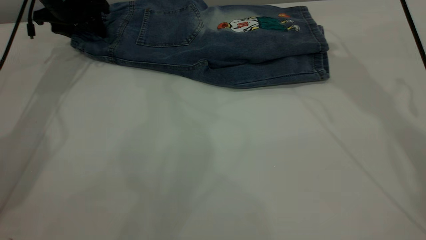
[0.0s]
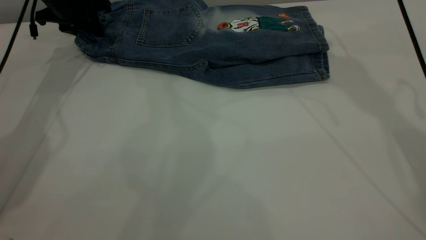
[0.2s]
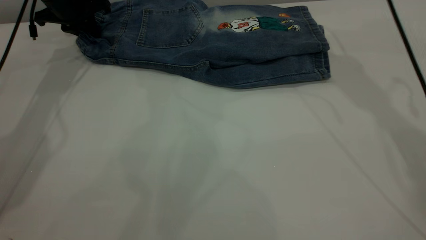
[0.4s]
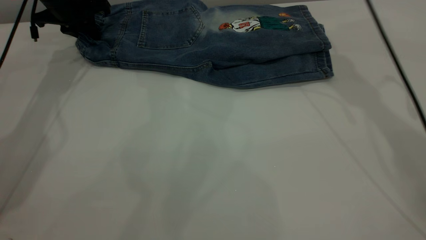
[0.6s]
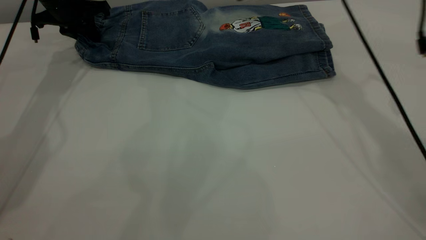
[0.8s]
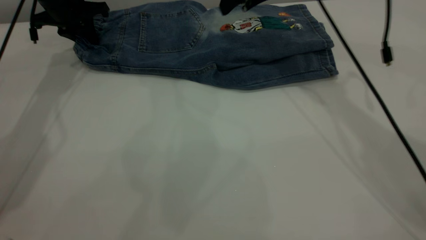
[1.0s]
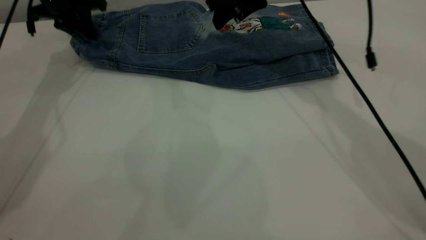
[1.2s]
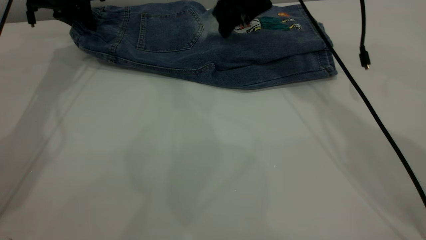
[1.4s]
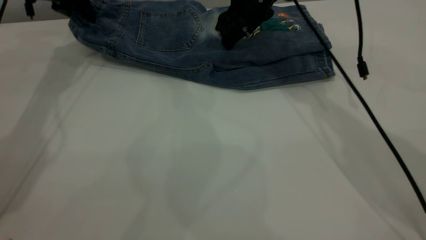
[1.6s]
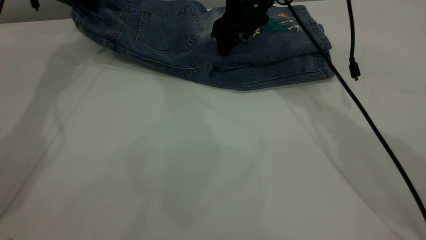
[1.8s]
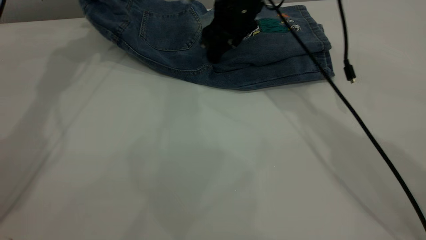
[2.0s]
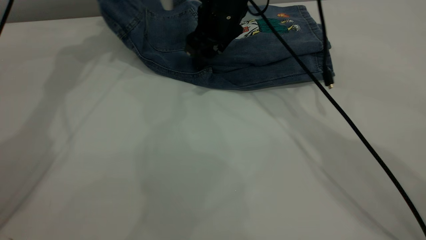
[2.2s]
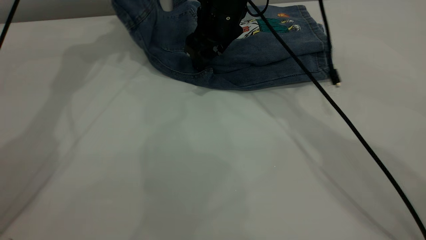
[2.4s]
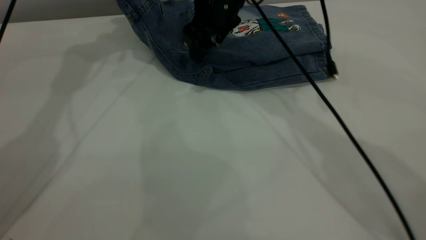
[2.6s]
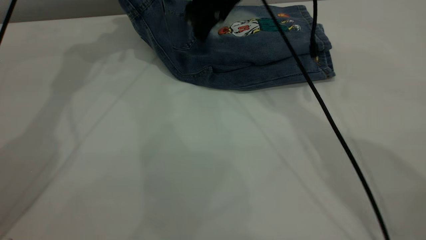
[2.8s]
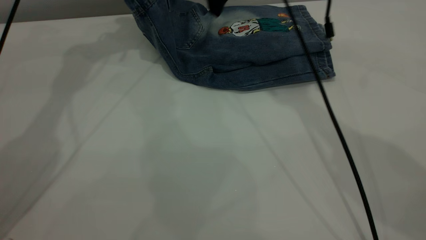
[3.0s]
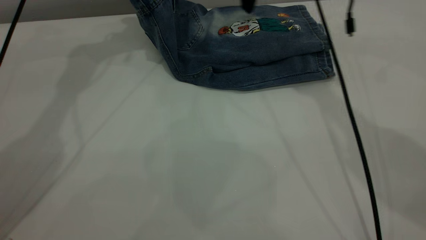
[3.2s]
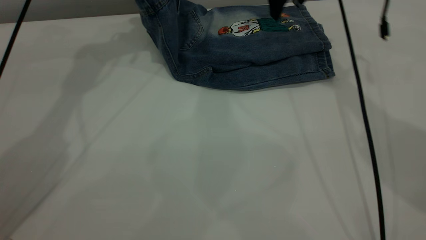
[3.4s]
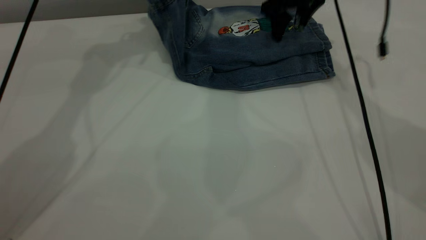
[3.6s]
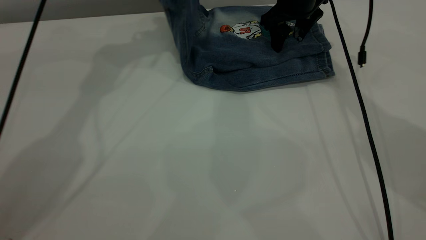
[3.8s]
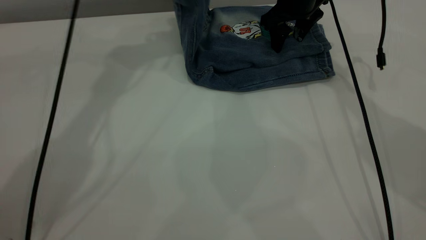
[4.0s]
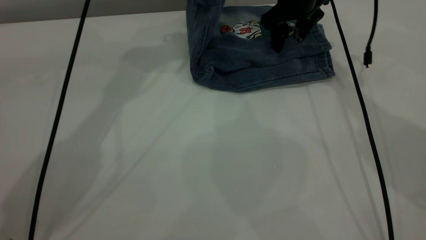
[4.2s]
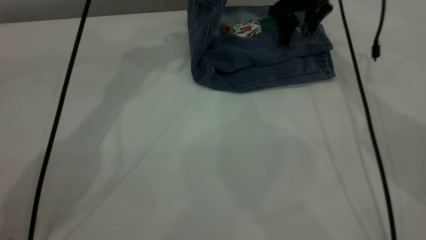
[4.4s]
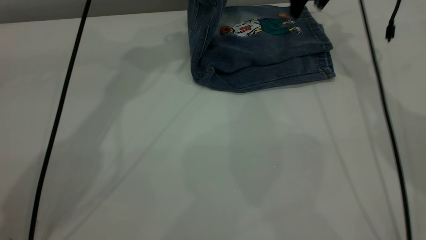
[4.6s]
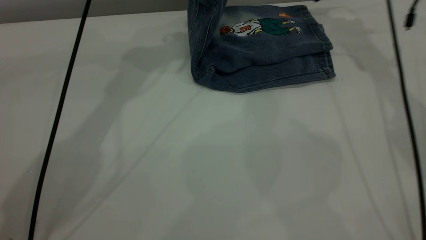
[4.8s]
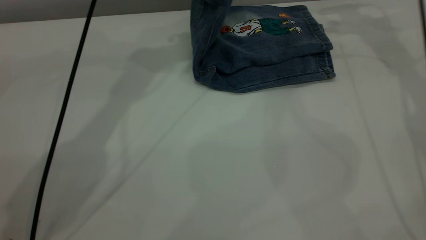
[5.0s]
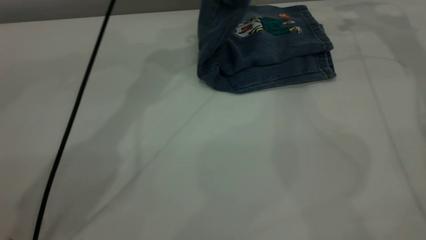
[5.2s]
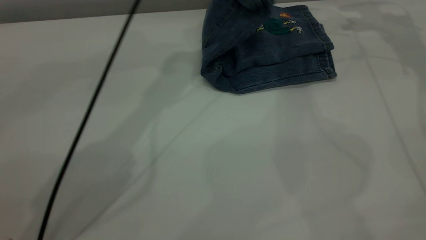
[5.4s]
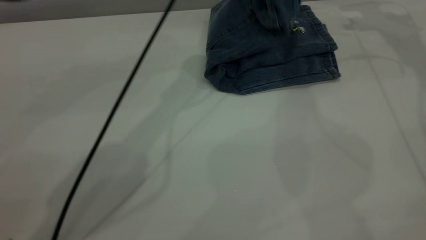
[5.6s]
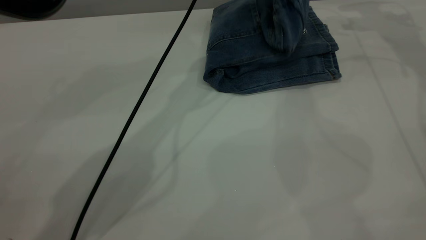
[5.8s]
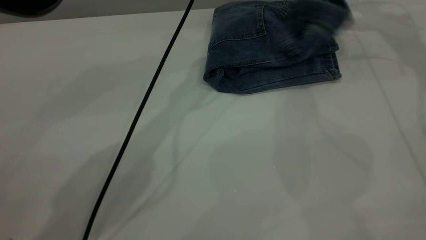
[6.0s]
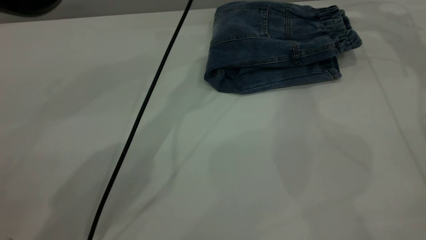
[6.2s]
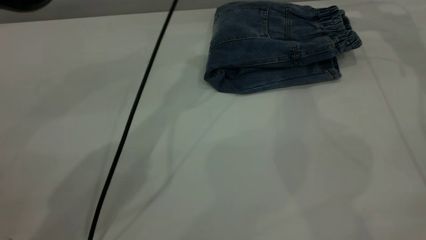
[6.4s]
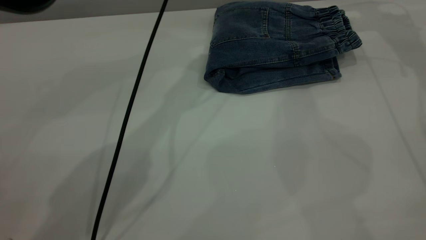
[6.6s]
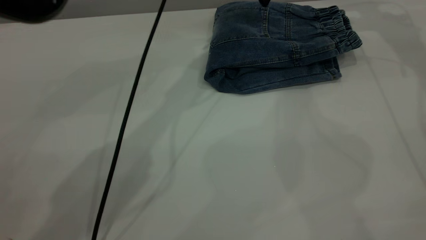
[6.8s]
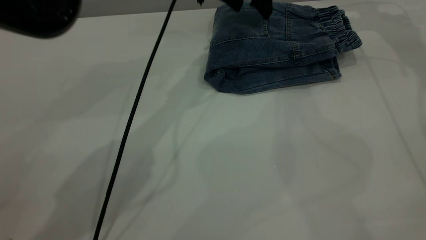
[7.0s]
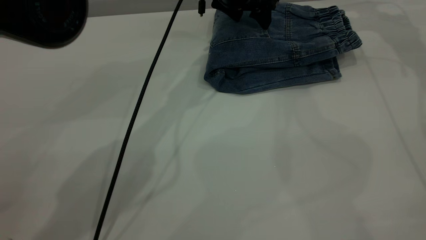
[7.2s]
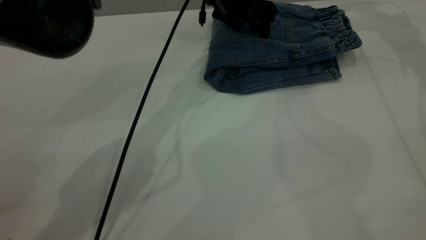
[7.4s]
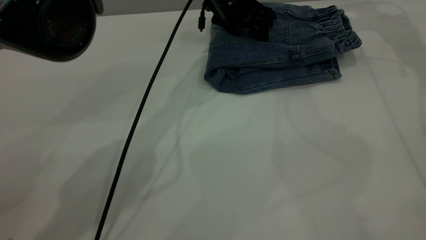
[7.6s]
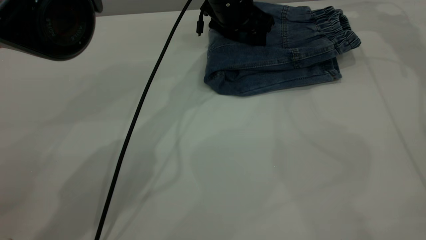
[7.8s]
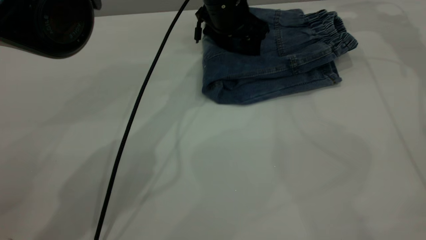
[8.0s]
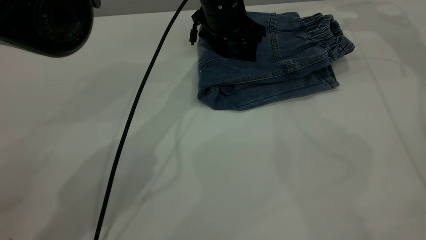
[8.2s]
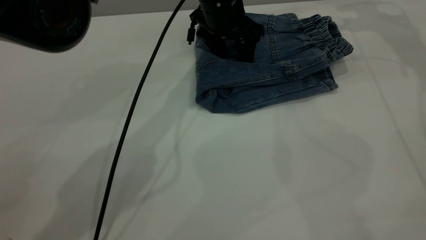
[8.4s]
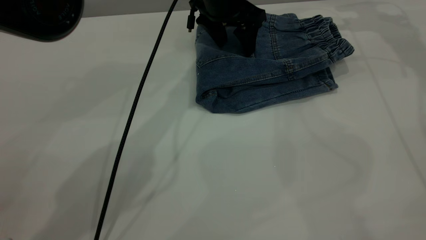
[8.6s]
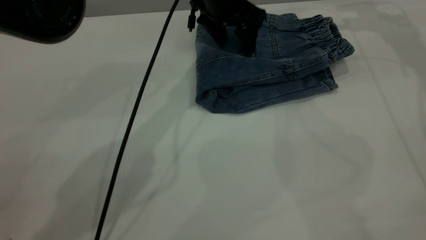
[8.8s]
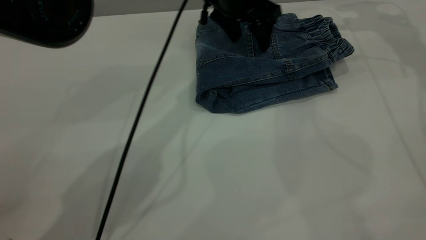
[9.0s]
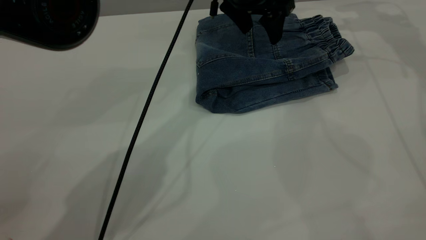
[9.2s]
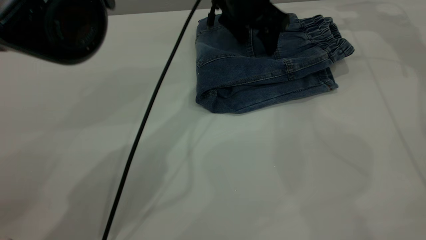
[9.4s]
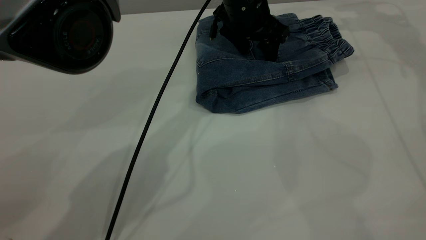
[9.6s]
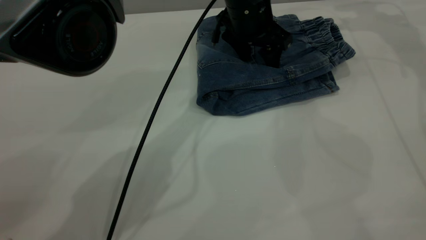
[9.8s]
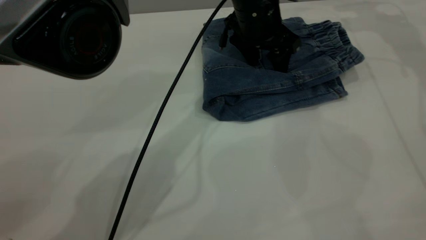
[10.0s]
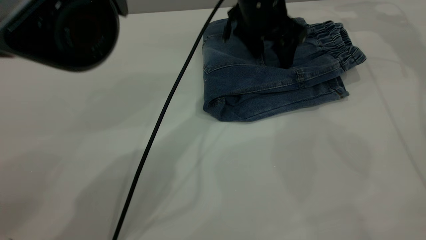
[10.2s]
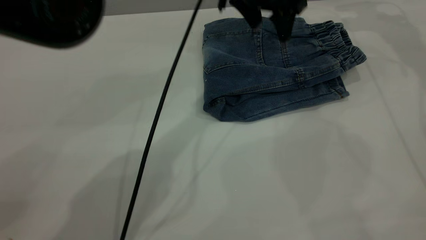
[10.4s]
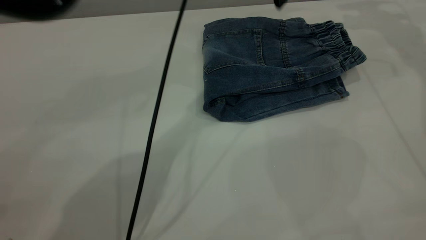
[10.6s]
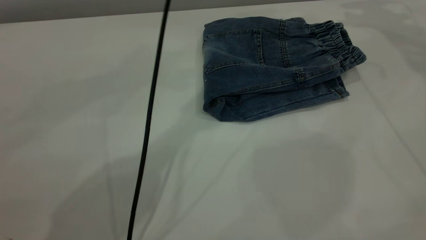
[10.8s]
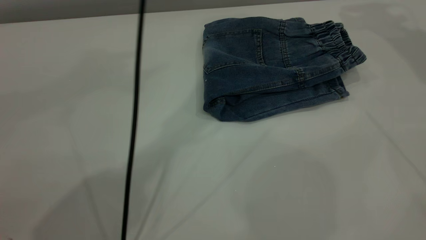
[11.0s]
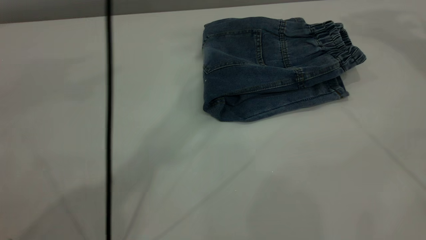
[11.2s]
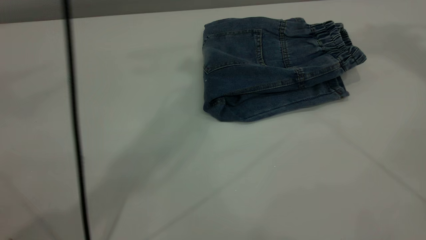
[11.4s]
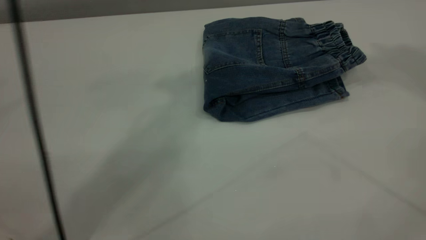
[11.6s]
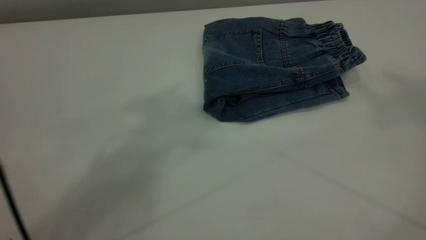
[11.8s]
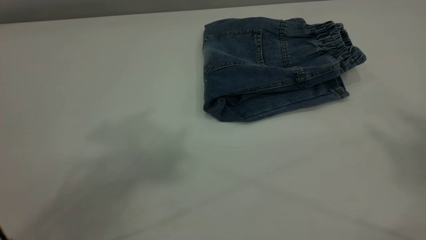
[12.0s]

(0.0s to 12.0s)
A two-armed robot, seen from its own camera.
Step, 0.0s - 6.8s: Fold the pants from left to right.
0.0s - 1.6s: The right gripper moves downward and to the left, some 15 cm; the left gripper heads upward, covering roughly 5 cm, and closes up.
1.6s - 3.0s: The left gripper goes roughly 10 cm upward and to the right. Meanwhile the right gripper shifts some 10 cm upward.
3.0s - 4.4s: The right gripper shifts about 15 cm to the right and downward, while the left gripper goes about 10 cm to the right.
4.4s - 6.0s: The left gripper moves to the right and downward, roughly 15 cm, and opens its fingers; the right gripper heads to the right and upward, covering roughly 15 cm.
6.0s - 7.6s: The left gripper heads downward, covering some 10 cm.
7.6s - 9.0s: The left gripper changes place by some 5 cm.
9.0s - 10.4s: The grippers stay close to where they were, moving slightly.
10.4s - 12.0s: The right gripper shifts approximately 50 cm backward and upward. Meanwhile the left gripper moves upward, backward and to the left, about 50 cm.
